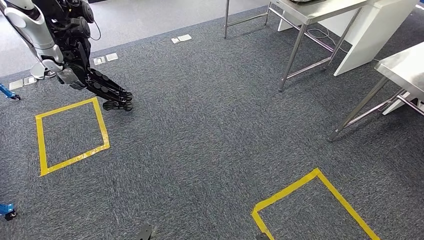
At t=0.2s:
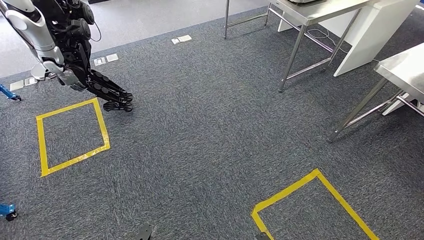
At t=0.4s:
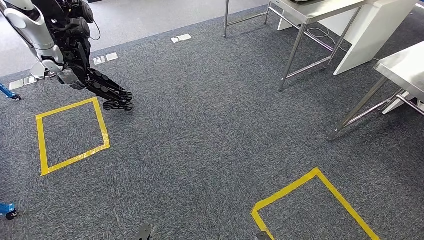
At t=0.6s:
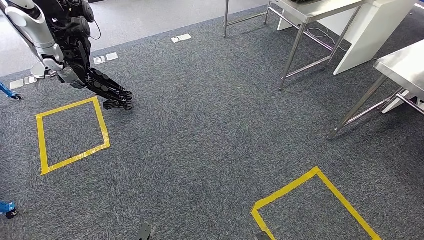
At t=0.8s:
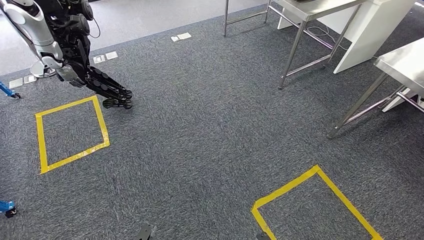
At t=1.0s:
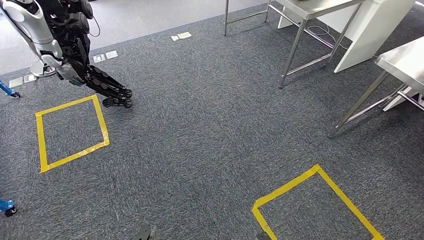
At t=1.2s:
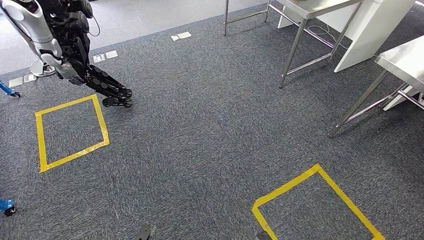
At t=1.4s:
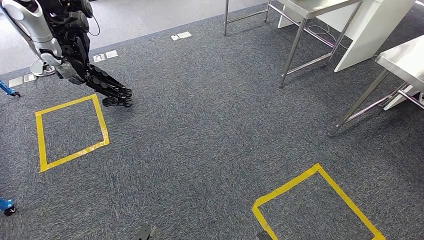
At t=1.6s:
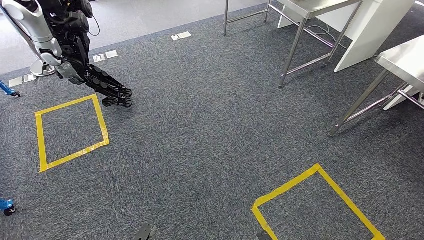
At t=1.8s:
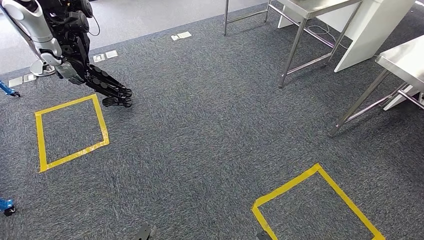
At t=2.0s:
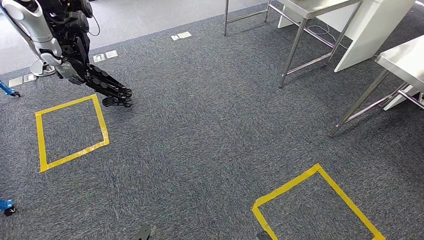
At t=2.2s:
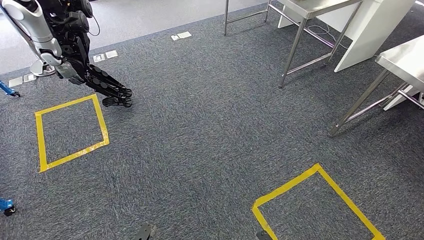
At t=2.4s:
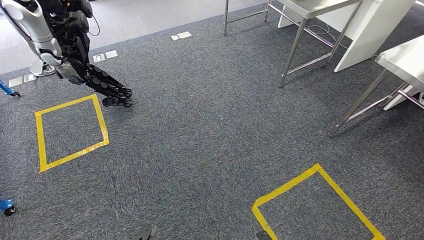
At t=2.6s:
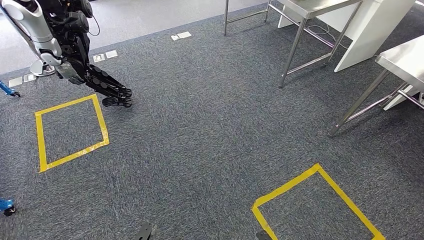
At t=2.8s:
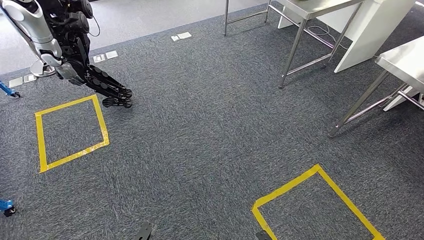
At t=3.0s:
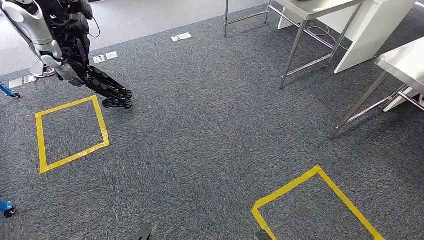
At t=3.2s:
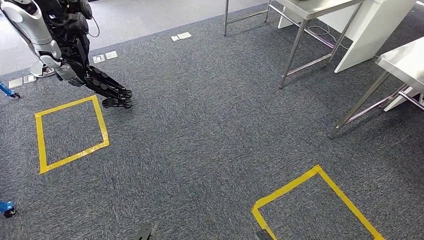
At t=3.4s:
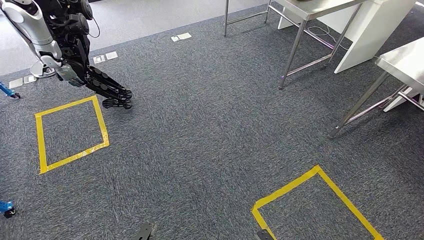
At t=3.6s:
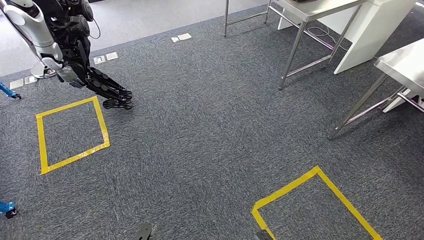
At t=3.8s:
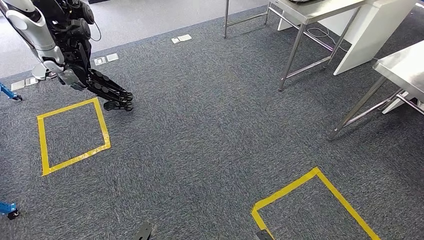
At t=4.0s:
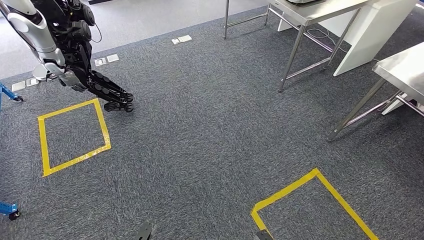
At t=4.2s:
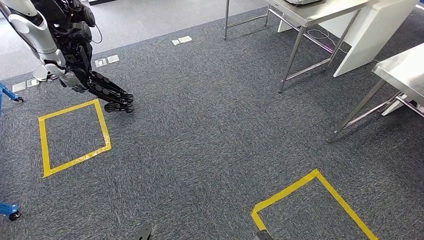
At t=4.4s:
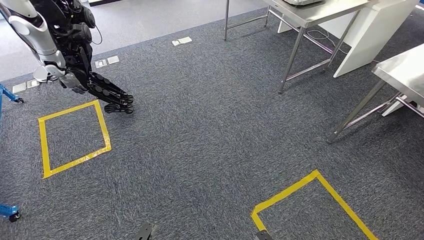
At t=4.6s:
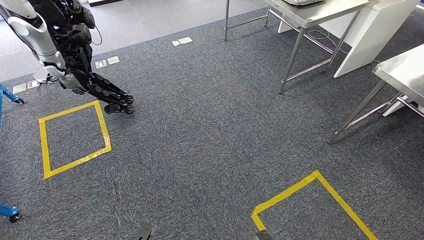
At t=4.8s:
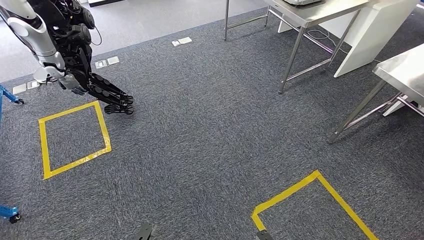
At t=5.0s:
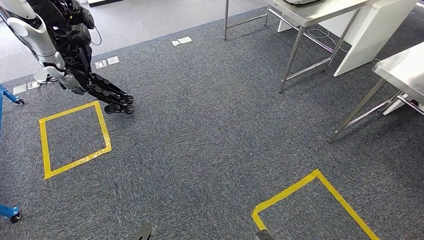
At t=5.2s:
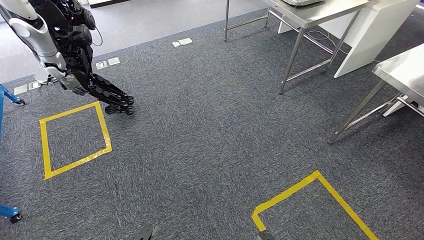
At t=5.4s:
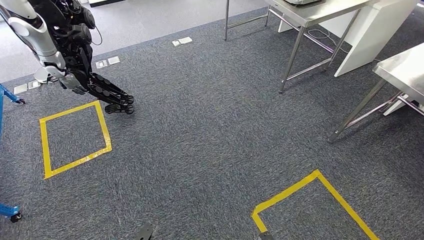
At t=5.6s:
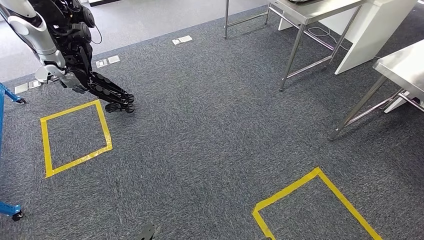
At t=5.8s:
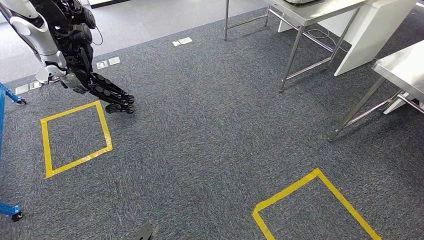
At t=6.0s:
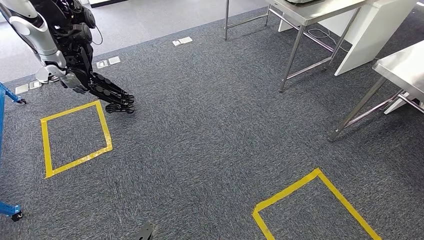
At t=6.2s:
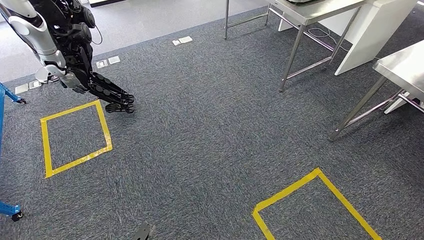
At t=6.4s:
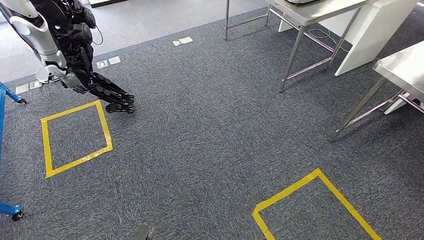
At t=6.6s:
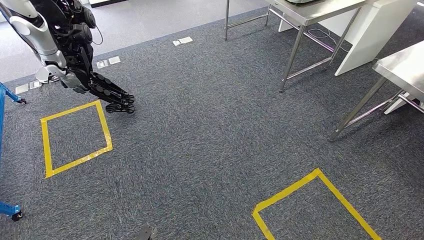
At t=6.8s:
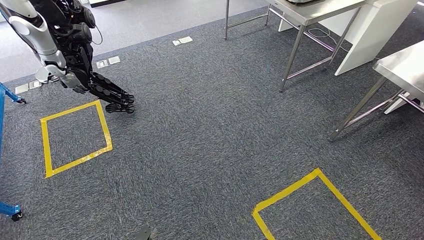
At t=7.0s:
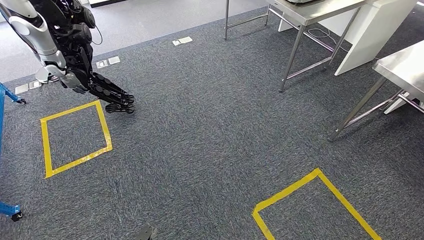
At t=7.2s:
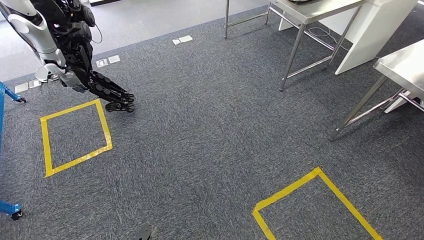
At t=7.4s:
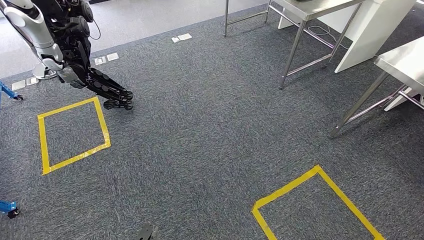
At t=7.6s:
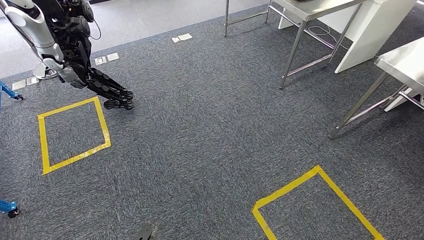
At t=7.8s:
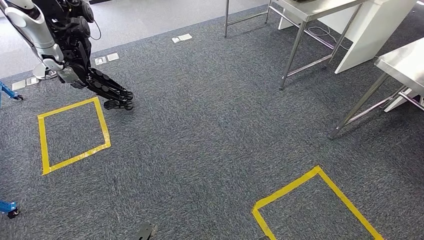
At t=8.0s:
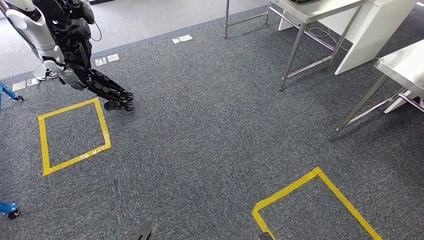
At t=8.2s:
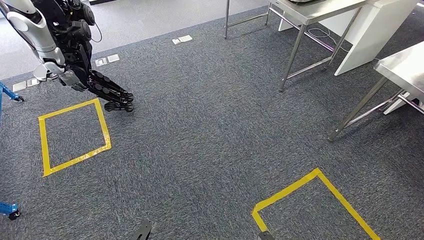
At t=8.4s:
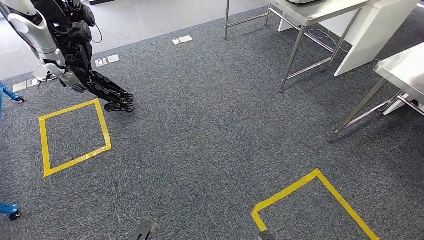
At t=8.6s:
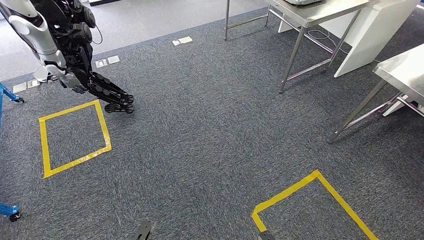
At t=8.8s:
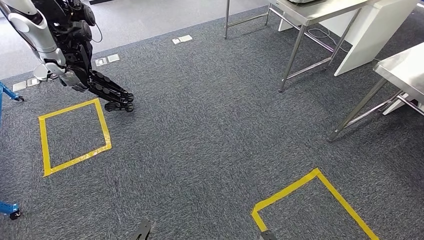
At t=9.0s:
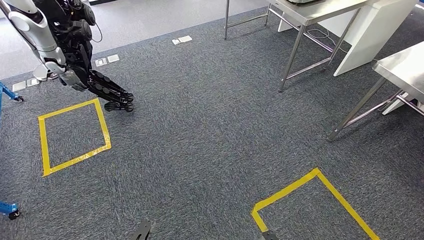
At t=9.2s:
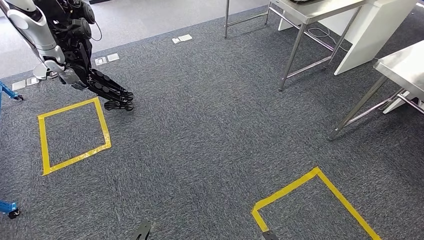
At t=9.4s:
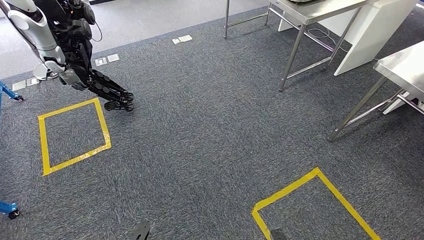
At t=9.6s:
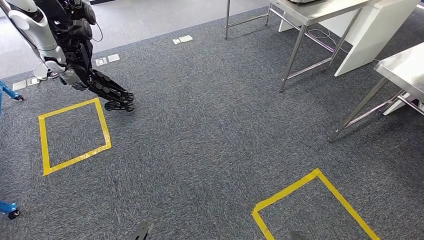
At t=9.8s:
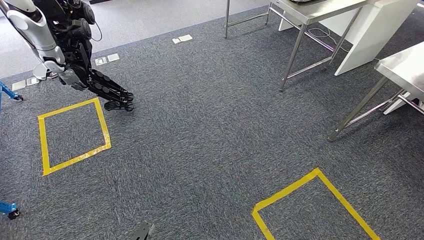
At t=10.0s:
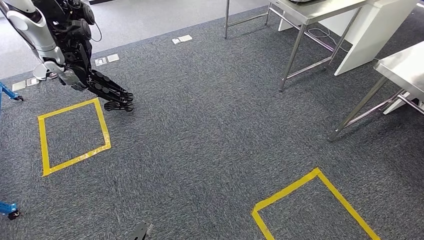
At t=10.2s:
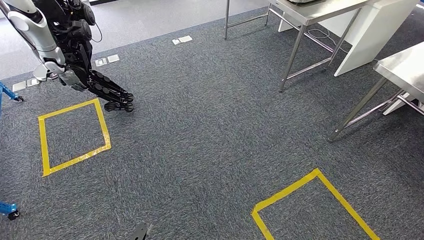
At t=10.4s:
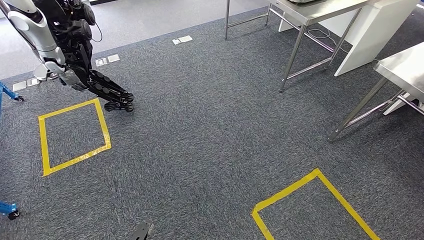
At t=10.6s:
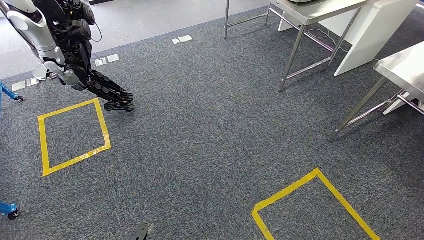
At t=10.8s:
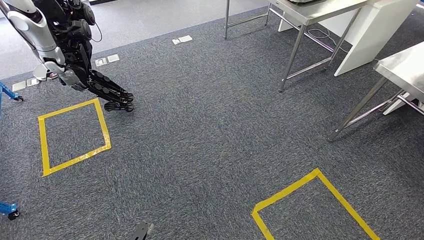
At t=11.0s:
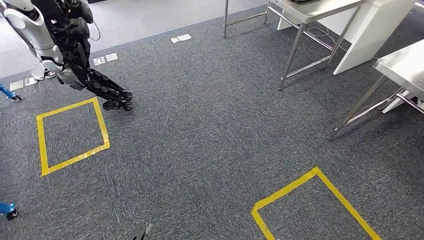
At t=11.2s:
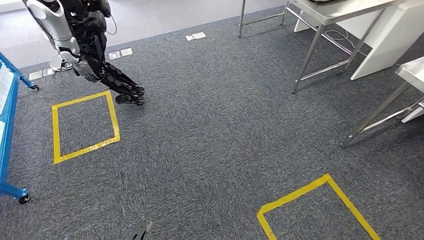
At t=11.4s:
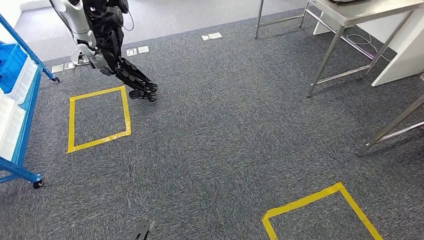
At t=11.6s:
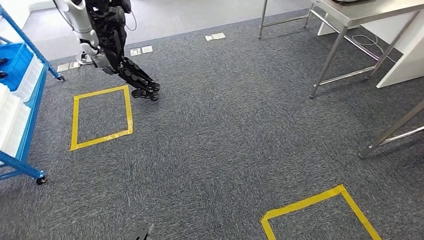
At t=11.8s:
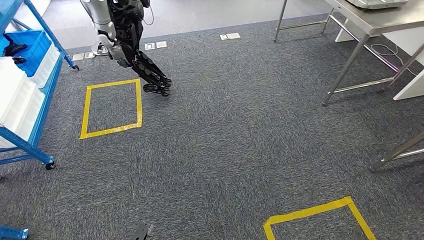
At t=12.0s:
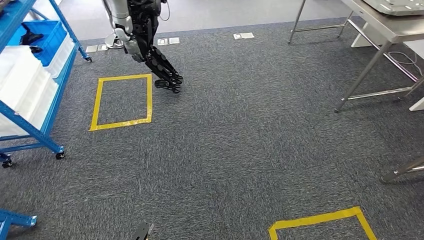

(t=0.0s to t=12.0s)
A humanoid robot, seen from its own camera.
t=0.0s - t=4.4s: Neither hand changes place.
t=4.4s - t=6.0s: The hands make only small movements.
t=6.0s - t=7.6s: Neither hand changes place.
t=7.6s - t=9.0s: The hands stay close to where they were, moving slightly.

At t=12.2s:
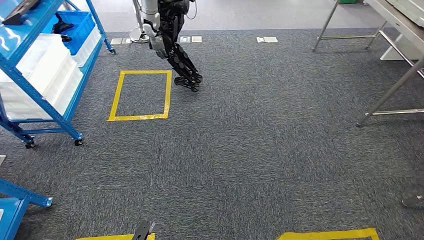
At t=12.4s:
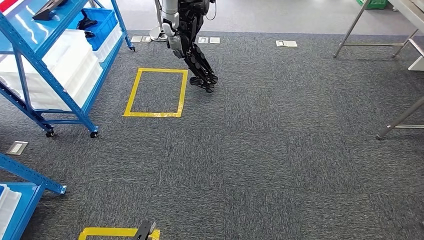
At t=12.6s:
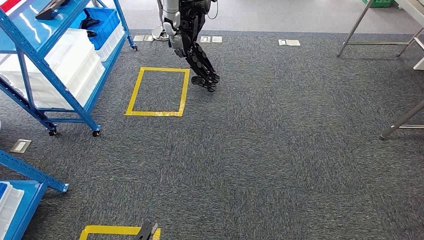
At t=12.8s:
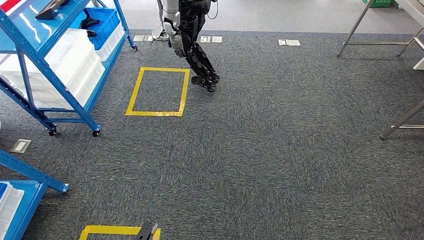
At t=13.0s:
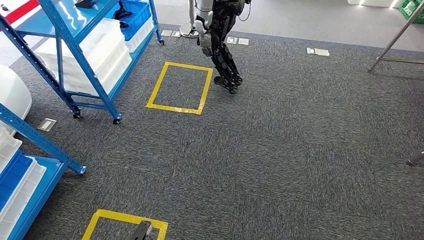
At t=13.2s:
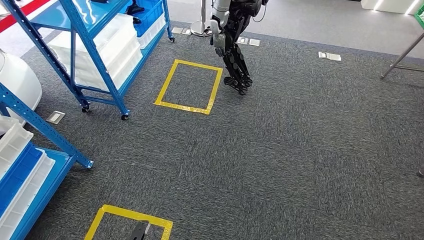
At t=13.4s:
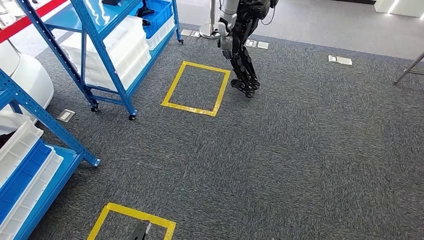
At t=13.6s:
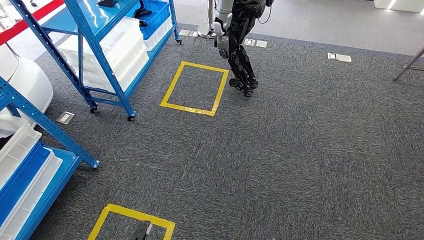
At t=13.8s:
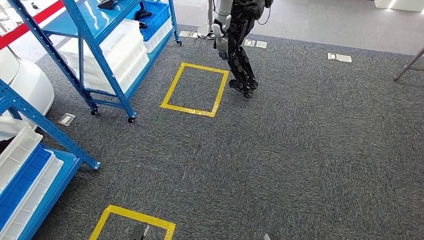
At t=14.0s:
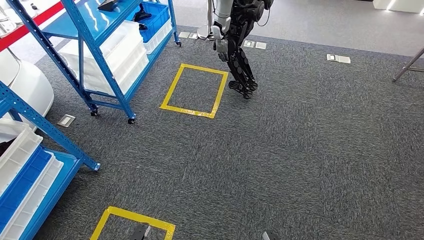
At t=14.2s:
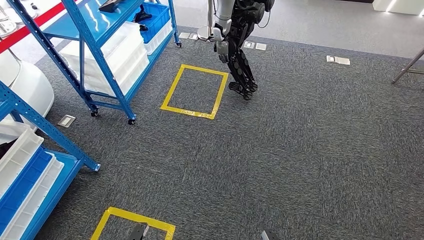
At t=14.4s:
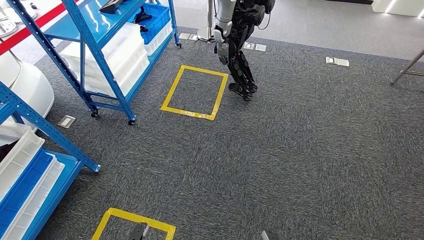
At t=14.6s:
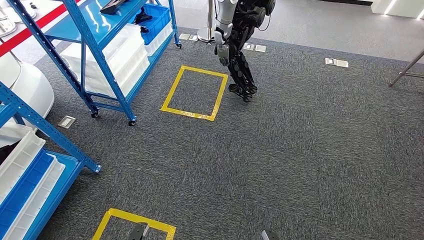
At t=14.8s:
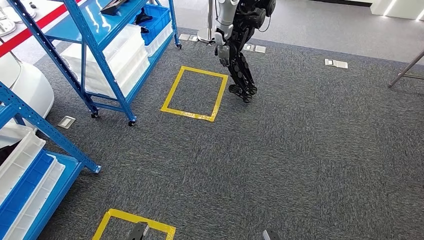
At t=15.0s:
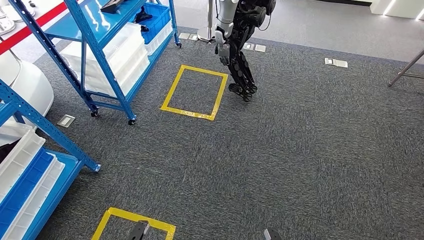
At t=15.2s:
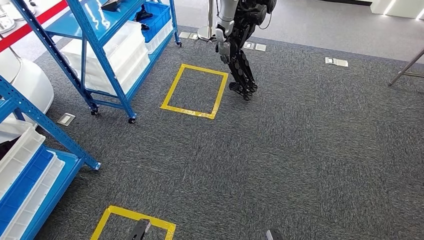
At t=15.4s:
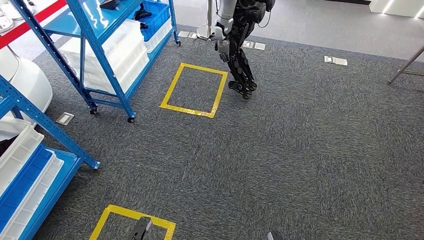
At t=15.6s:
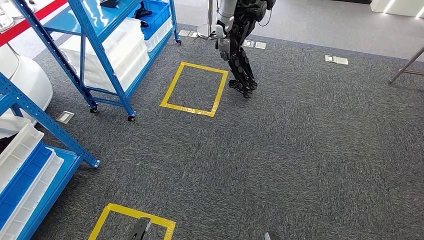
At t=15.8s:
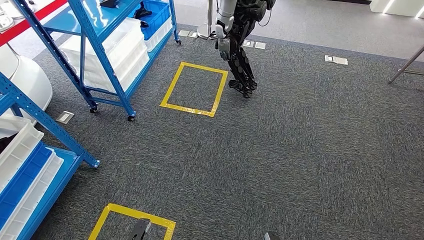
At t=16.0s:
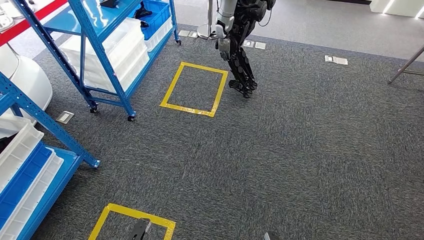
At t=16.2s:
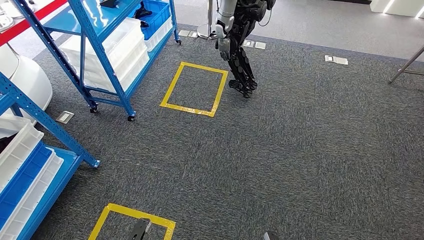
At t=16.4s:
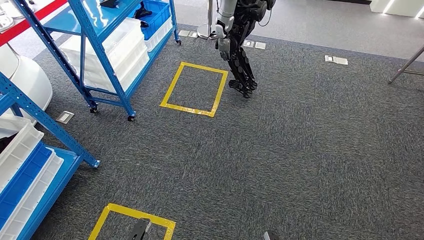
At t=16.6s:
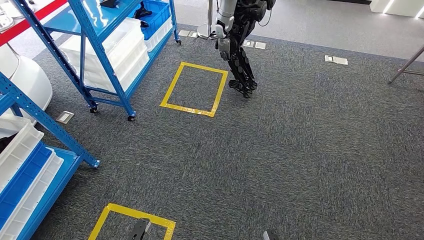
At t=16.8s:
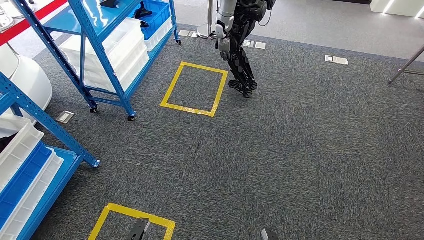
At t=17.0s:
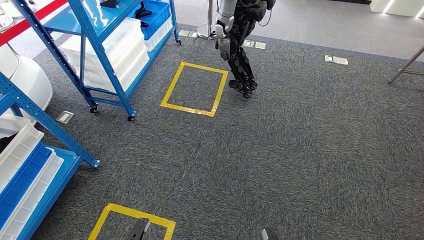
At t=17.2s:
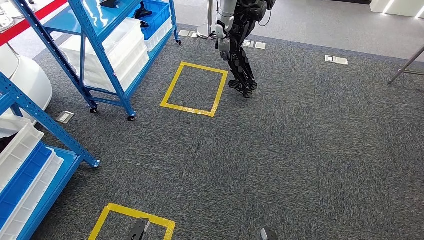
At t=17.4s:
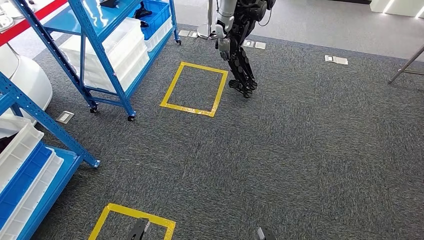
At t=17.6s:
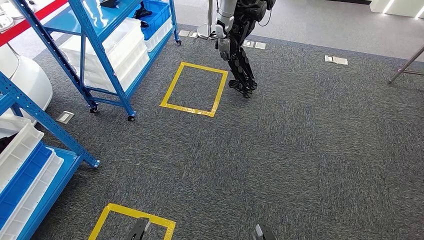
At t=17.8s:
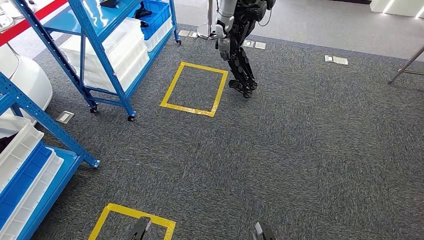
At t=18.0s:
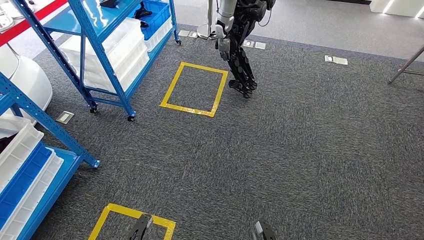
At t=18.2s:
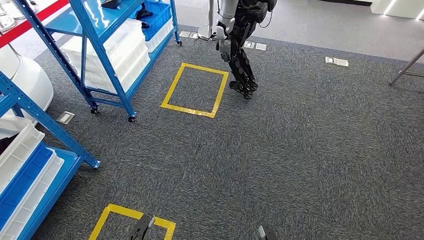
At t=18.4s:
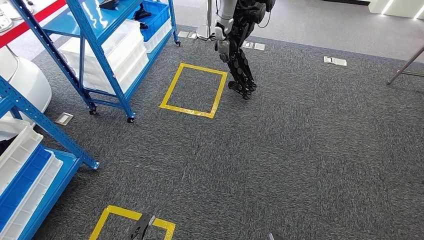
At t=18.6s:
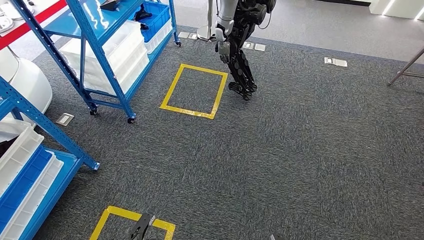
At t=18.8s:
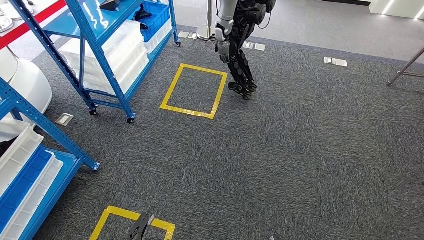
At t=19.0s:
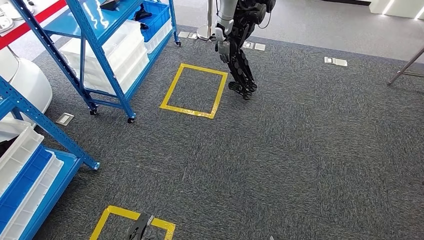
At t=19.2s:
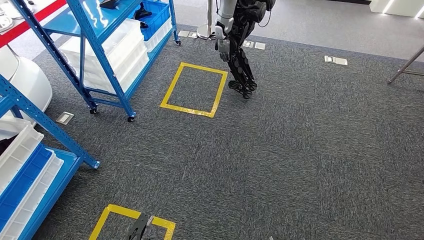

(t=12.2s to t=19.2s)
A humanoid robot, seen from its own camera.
t=13.6s - t=16.4s: The hands make only small movements.
t=17.8s - t=19.2s: The right hand moves roughly 5 cm.
